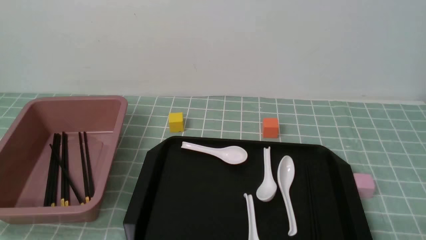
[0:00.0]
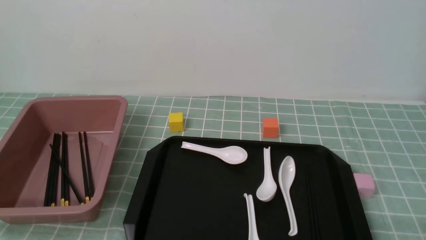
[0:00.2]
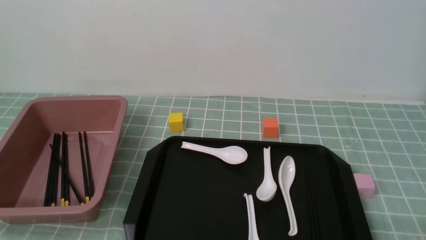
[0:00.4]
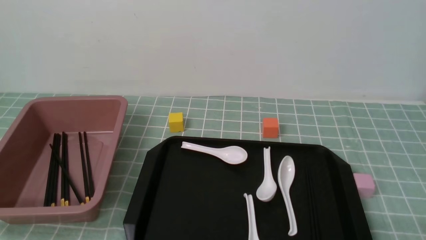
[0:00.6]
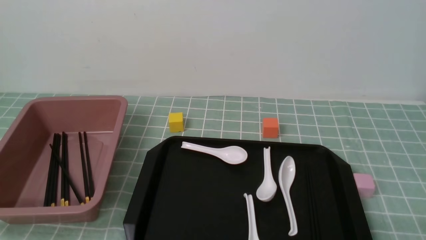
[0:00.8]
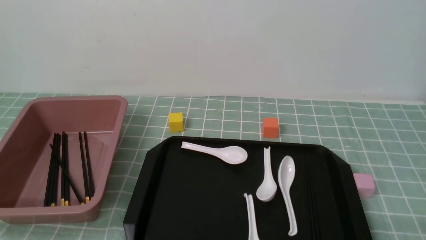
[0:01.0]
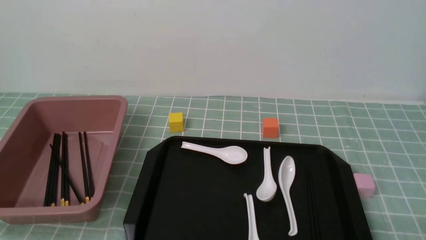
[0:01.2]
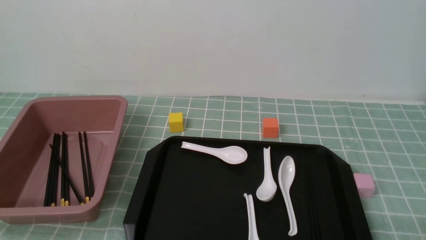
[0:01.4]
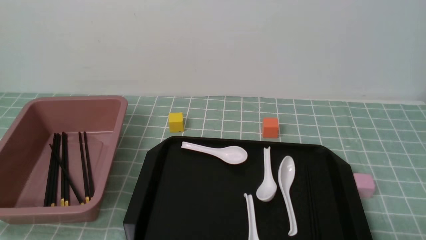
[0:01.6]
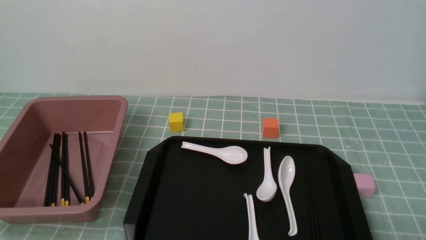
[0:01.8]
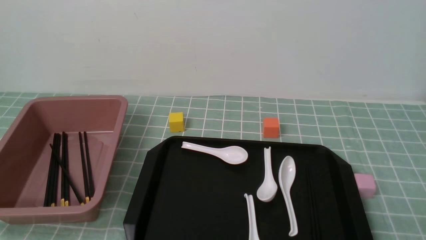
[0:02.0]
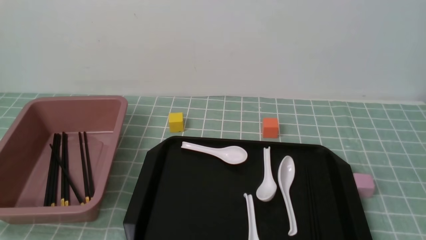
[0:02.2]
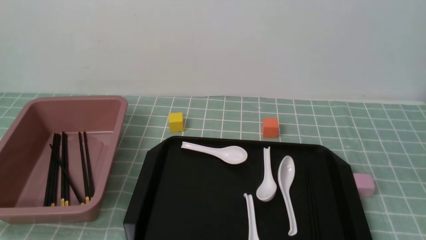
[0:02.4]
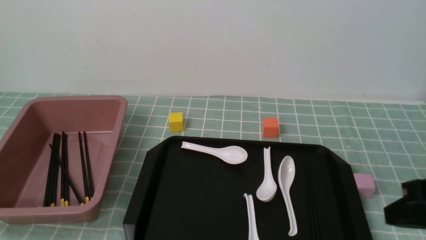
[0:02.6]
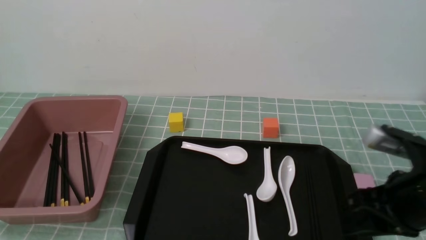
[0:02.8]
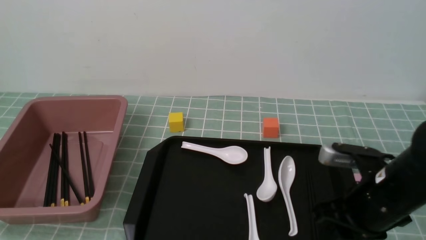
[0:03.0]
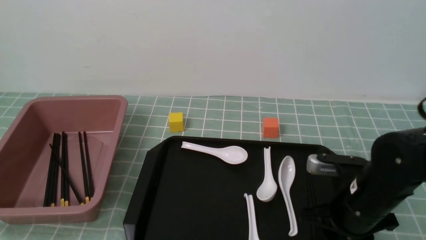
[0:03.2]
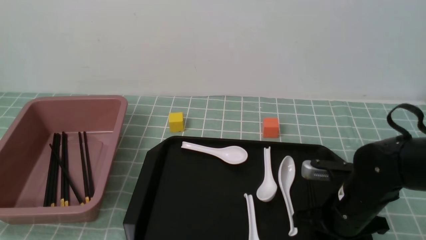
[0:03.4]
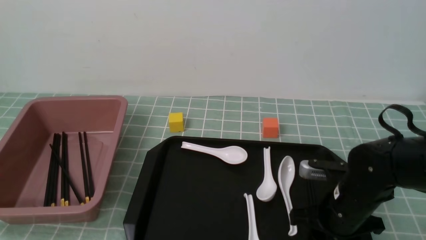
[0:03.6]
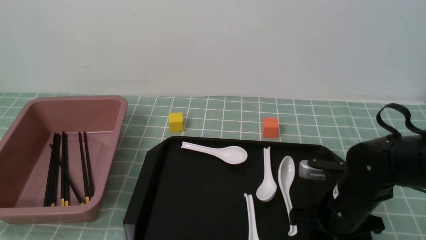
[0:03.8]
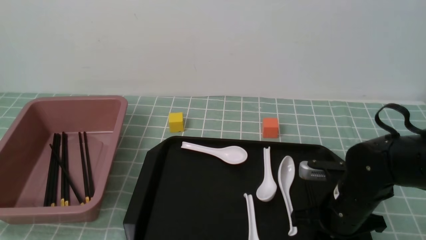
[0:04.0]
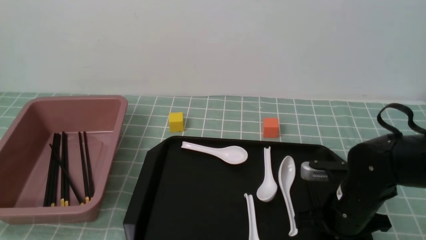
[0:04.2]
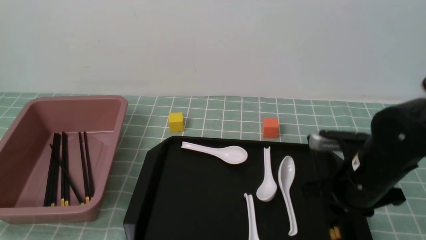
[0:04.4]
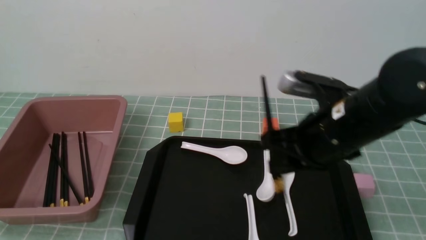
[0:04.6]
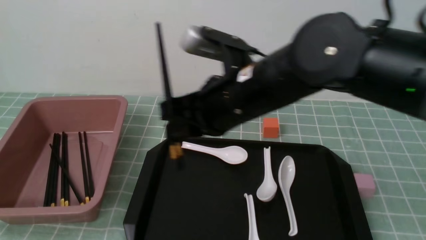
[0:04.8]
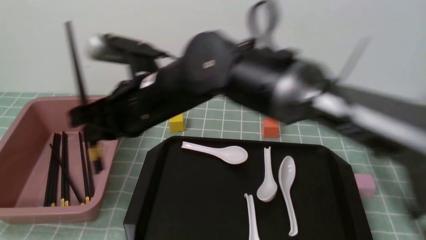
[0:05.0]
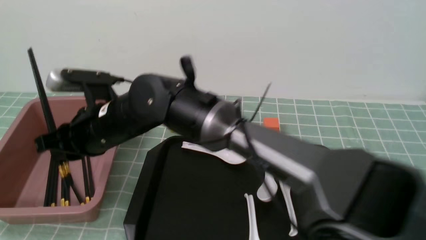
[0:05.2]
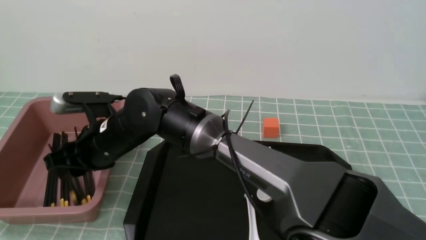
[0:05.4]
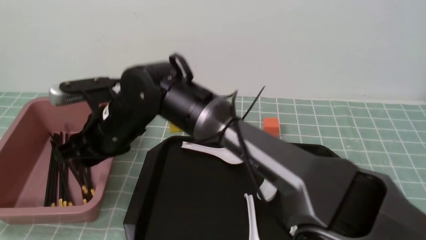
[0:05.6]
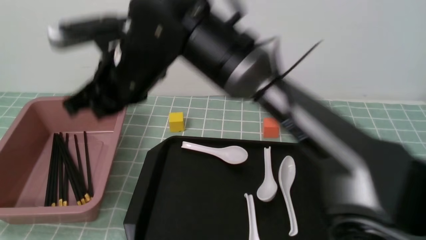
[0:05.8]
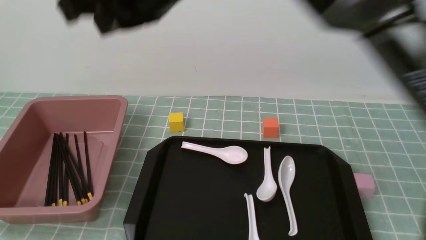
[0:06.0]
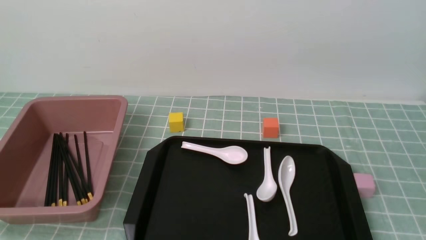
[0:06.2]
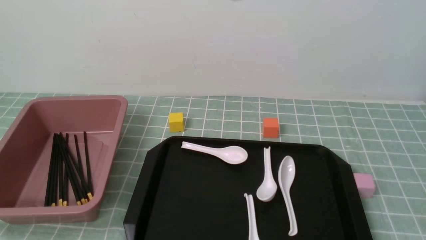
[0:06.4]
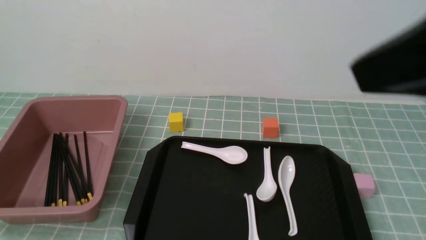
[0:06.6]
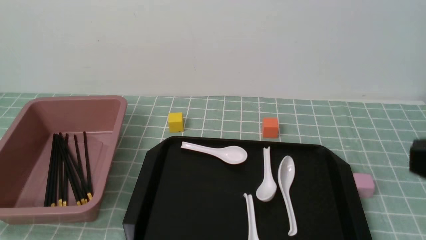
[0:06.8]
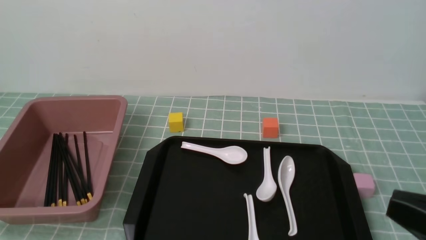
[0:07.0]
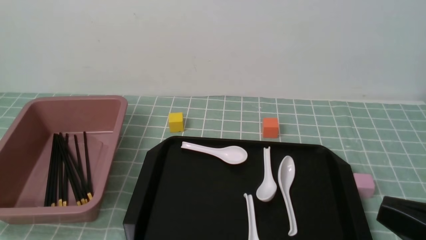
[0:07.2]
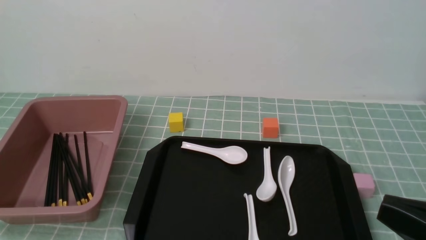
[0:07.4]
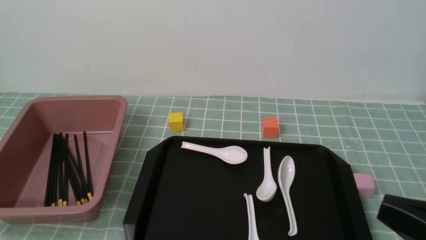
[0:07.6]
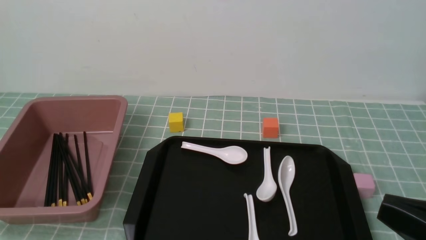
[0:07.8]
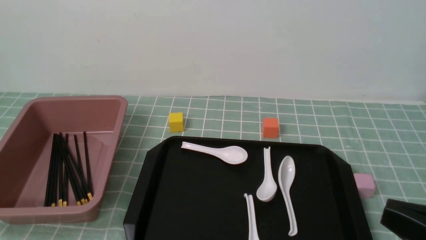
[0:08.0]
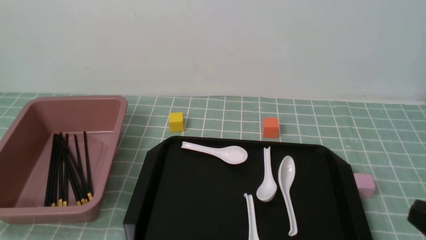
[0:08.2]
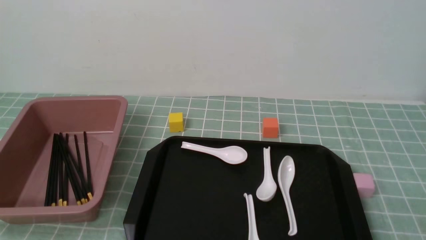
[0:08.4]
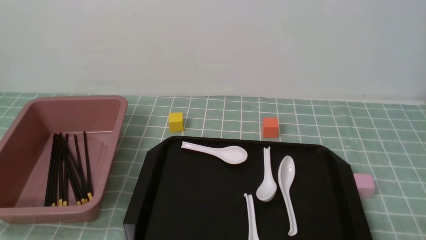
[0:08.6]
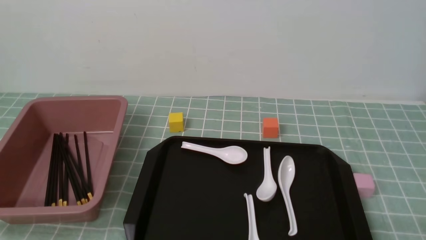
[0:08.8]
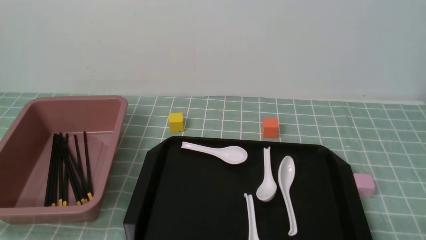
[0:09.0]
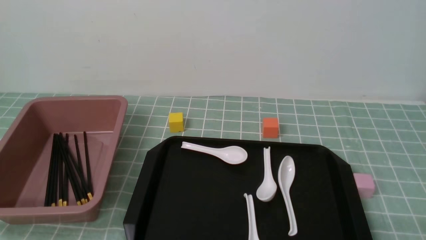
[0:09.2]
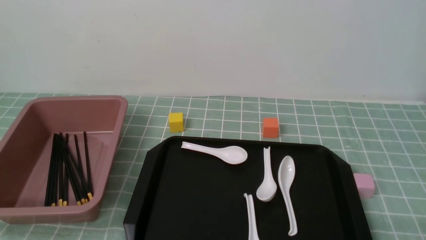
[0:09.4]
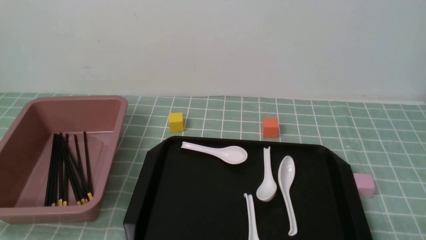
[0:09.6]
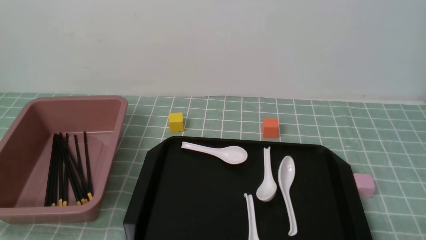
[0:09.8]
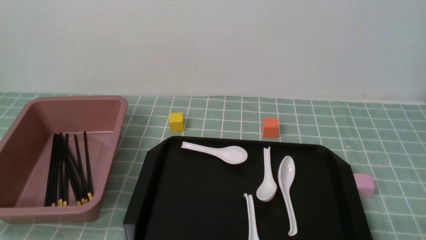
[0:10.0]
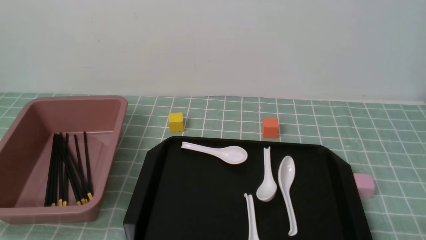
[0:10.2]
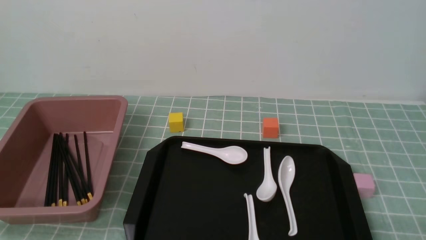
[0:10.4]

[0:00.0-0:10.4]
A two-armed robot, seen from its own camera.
Step, 0:00.0 to 0:04.4: use the right arm to grab a pair of chopsticks.
Step, 0:04.6 to 0:05.6: use the right arm to put the chopsticks into the lunch box.
0:01.4 to 0:03.0: The right gripper moves forward and to the left, approximately 20 cm, and opens.
0:03.0 to 0:04.4: The right gripper goes downward and returns, about 5 cm each way, and closes up.
0:04.4 to 0:06.0: The right gripper goes roughly 30 cm upward and to the left, and opens, then closes again.
0:06.0 to 0:07.4: The right gripper moves to the right, backward and downward, roughly 35 cm.
0:07.4 to 0:09.0: The right gripper goes some 15 cm downward and to the right.
0:09.0 to 0:10.4: Both grippers stay about where they are.

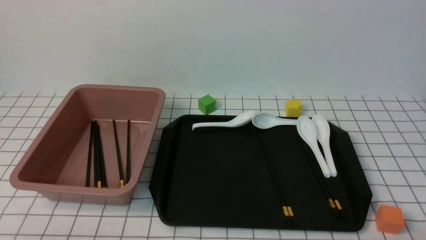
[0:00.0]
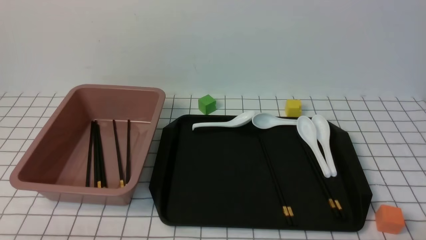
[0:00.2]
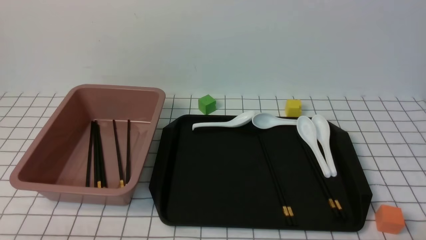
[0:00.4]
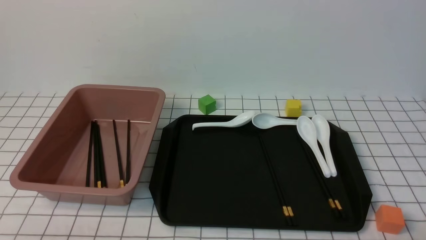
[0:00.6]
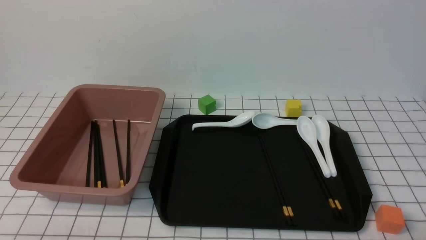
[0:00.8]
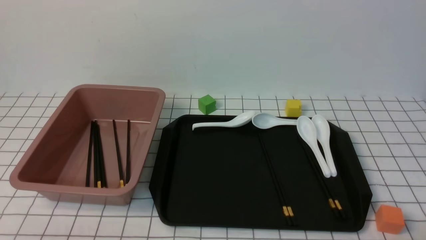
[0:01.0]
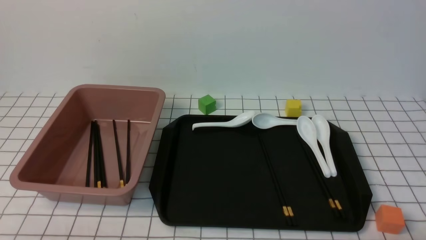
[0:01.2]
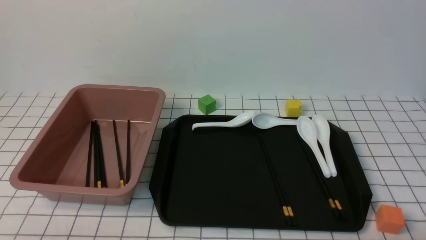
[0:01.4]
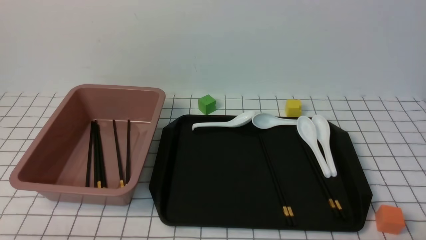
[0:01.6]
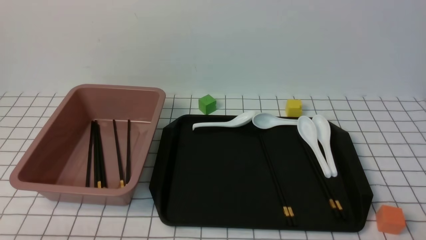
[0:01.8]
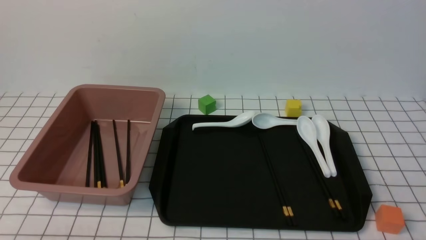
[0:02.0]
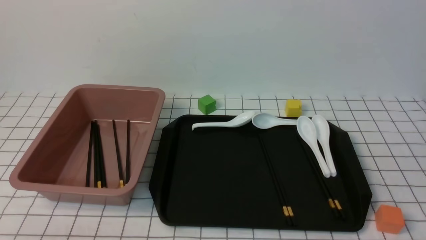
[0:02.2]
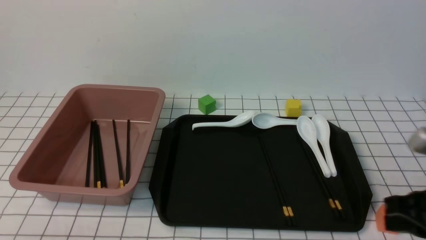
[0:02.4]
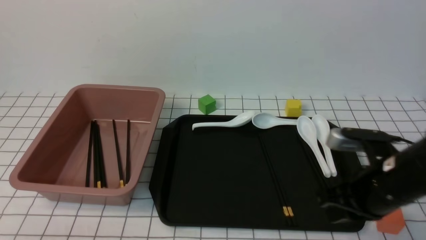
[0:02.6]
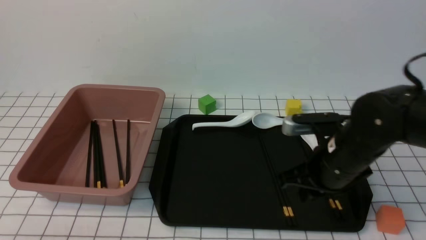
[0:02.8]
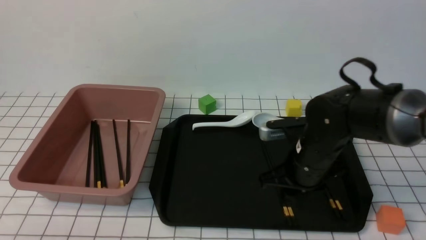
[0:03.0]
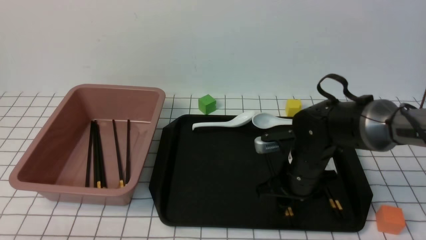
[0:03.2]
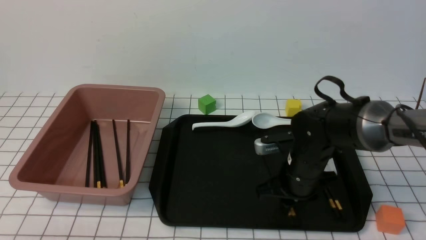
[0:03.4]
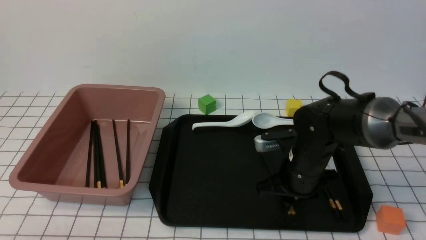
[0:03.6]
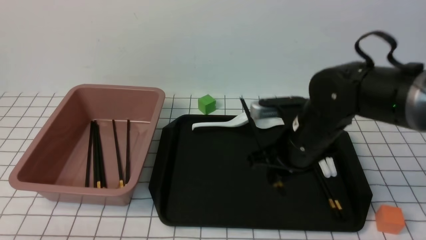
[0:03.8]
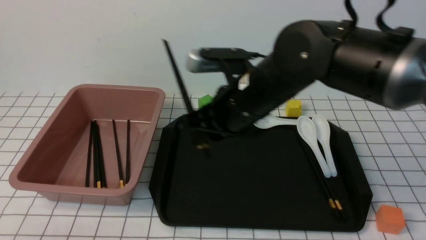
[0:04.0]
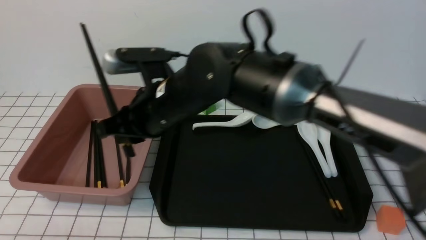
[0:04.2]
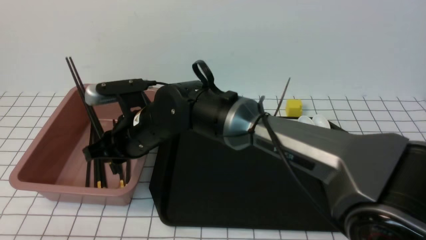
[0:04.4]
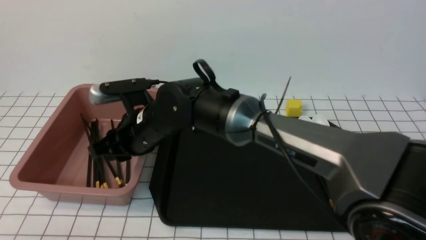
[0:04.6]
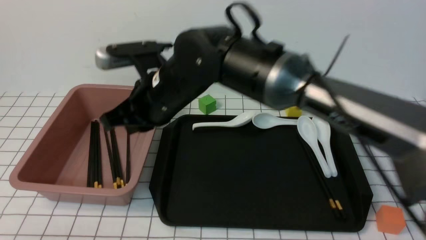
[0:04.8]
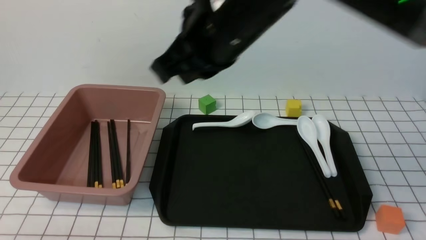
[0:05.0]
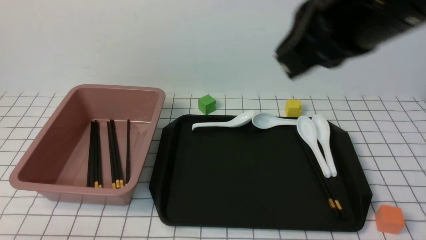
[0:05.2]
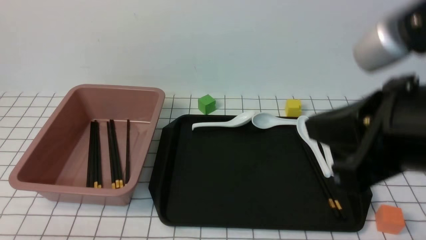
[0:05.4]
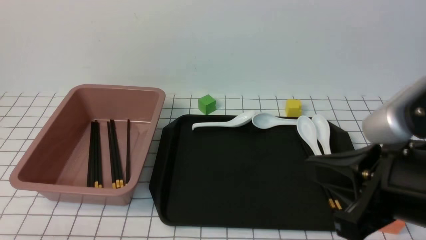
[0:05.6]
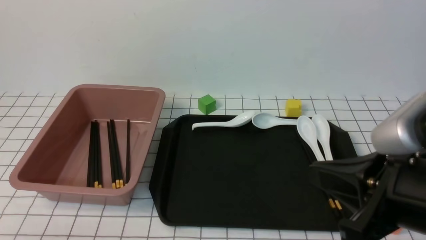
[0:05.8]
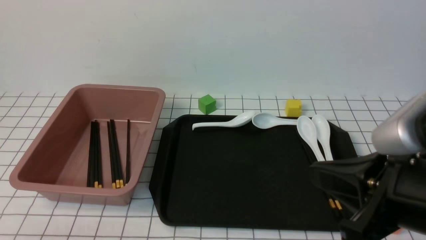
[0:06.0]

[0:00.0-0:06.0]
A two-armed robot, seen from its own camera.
Step, 0:00.0 to 0:02.6: use the right arm to grab a pair of chopsticks.
Step, 0:02.8 to 0:05.0: use the right arm to put the chopsticks into the lunch box.
0:01.6 to 0:03.0: The right gripper heads forward and to the left, covering about 30 cm, and closes and opens again.
0:03.0 to 0:04.4: The right gripper goes roughly 25 cm to the left.
0:04.4 to 0:06.0: The right gripper travels to the right and backward by about 35 cm, and closes up.
